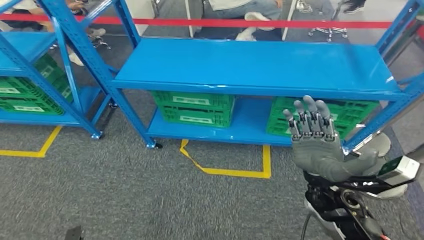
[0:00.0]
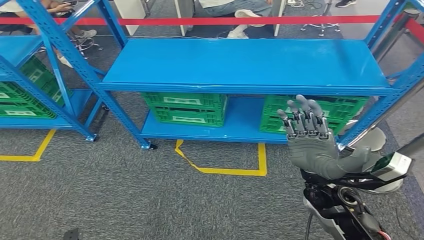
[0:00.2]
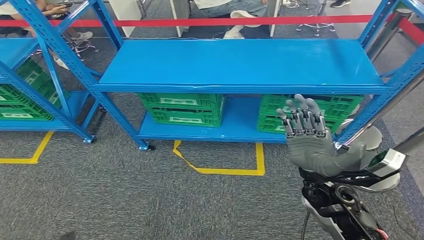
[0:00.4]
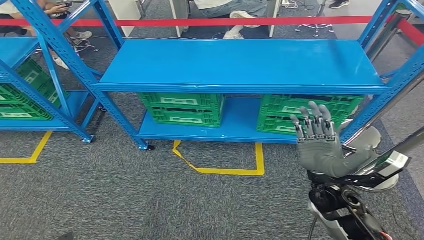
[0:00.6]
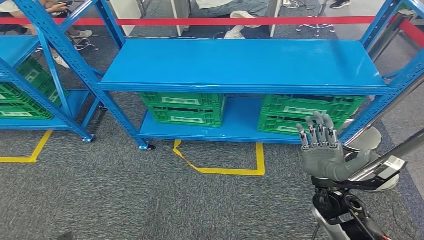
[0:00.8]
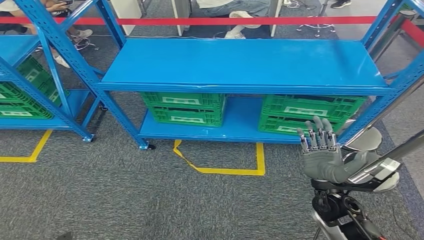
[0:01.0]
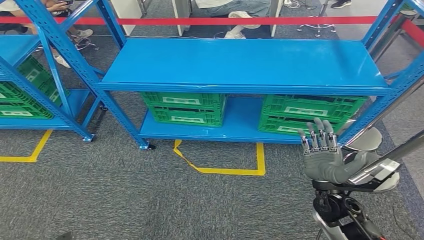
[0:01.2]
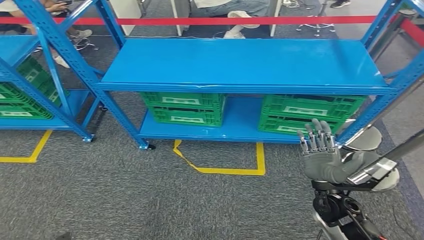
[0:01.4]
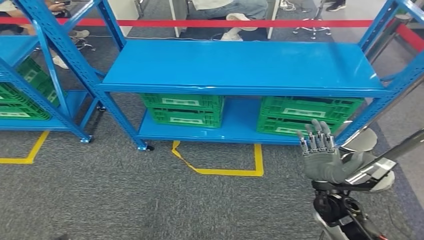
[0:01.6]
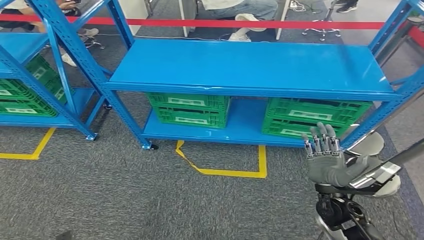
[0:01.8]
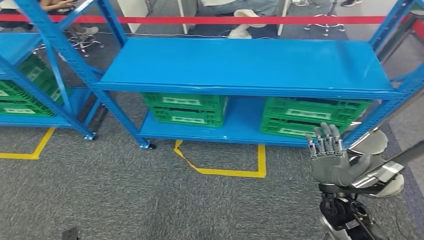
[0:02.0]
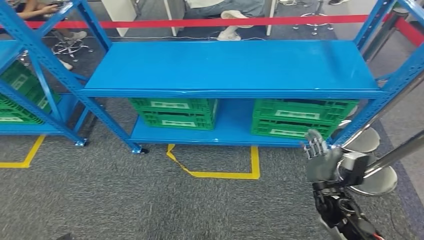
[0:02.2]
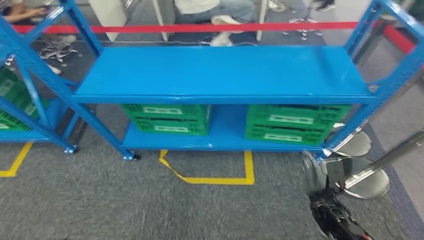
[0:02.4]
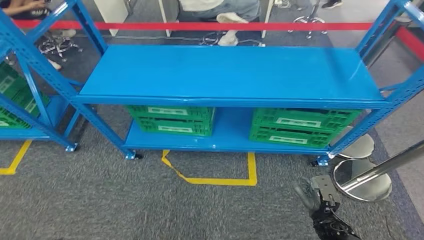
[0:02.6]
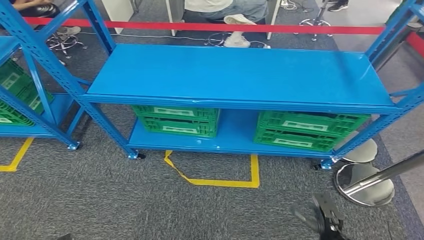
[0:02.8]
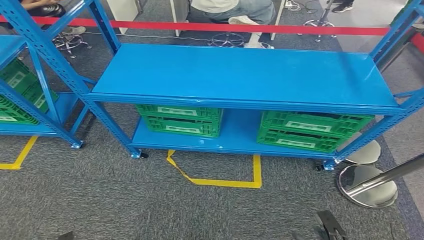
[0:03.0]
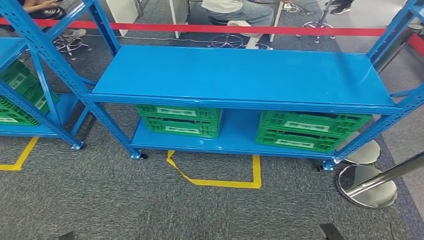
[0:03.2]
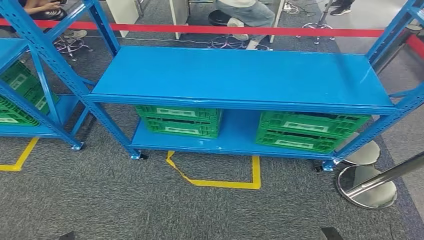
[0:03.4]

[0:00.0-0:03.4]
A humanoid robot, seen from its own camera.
Step, 0:00.0 to 0:03.2: Return to the initial position at the workbench.

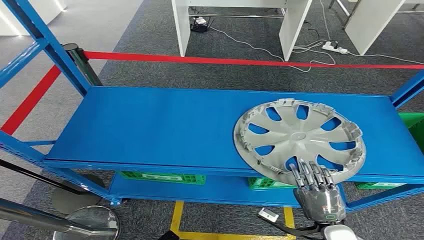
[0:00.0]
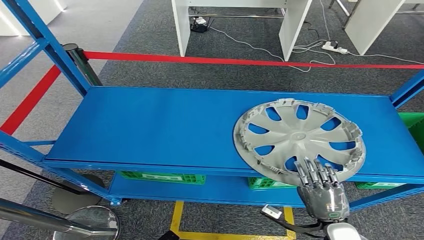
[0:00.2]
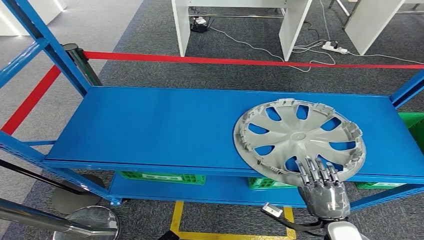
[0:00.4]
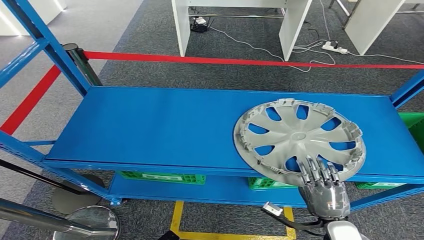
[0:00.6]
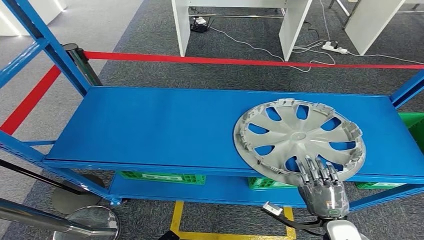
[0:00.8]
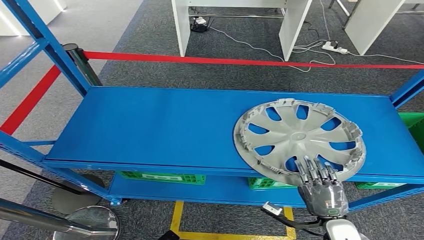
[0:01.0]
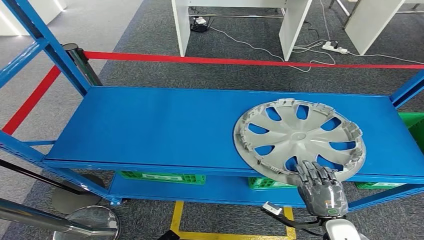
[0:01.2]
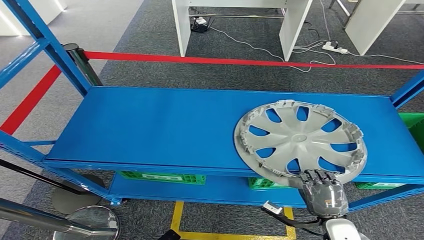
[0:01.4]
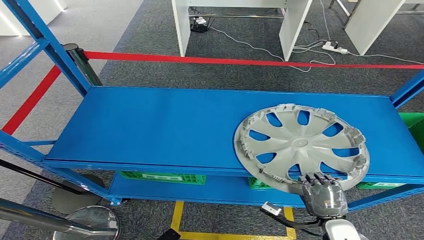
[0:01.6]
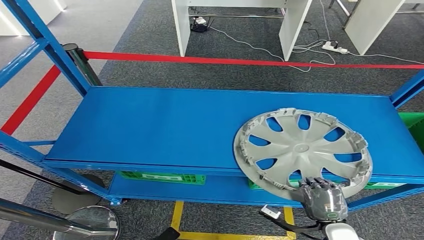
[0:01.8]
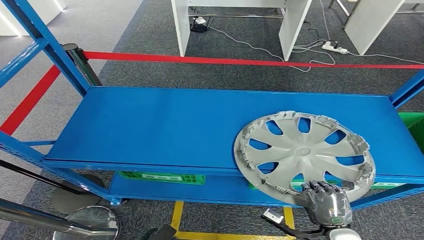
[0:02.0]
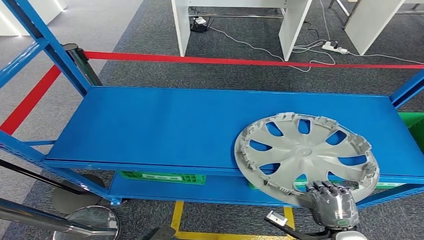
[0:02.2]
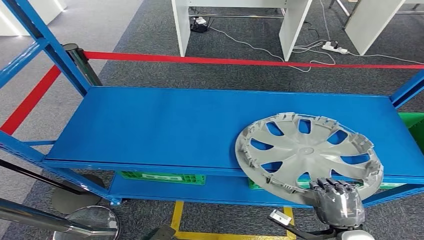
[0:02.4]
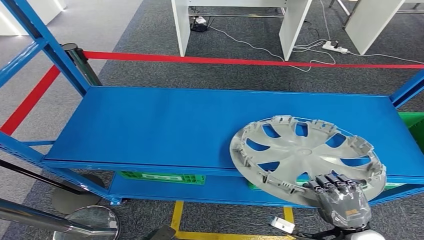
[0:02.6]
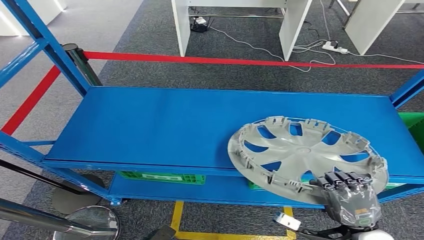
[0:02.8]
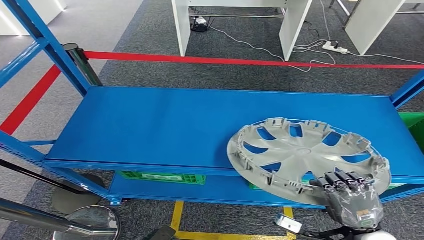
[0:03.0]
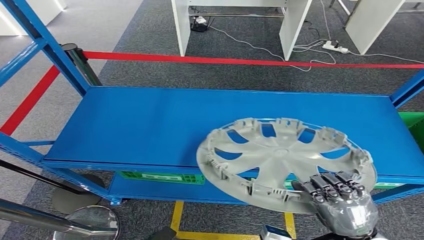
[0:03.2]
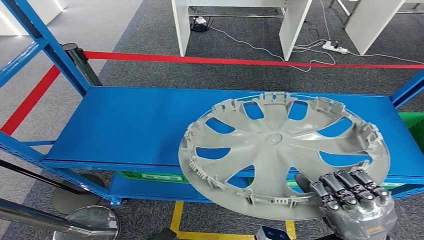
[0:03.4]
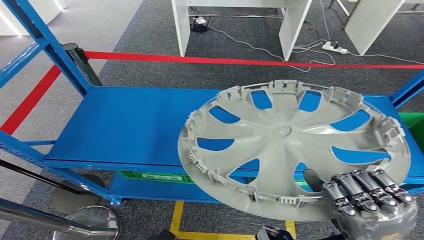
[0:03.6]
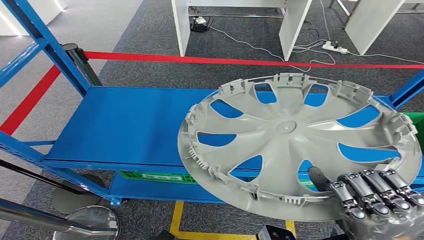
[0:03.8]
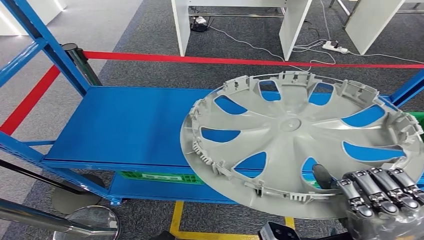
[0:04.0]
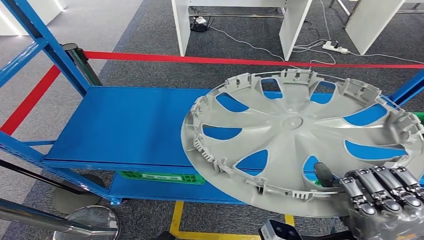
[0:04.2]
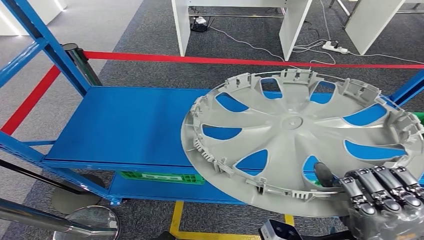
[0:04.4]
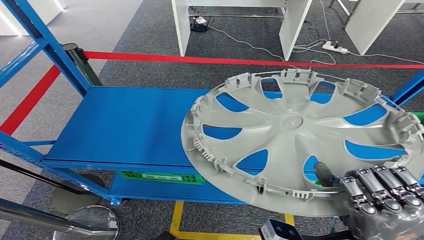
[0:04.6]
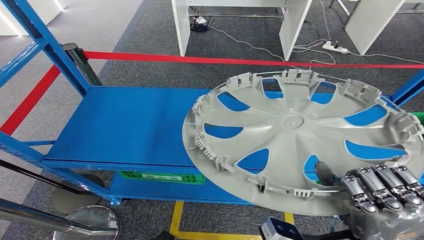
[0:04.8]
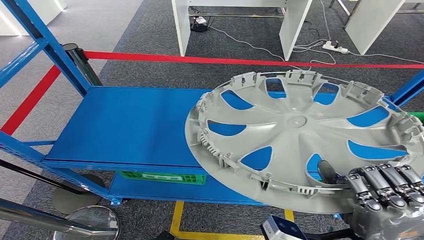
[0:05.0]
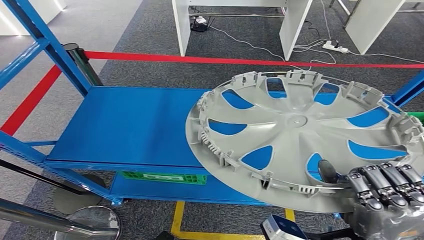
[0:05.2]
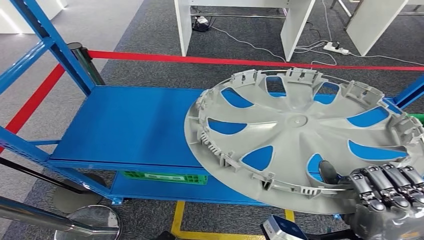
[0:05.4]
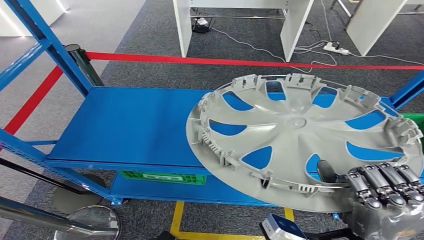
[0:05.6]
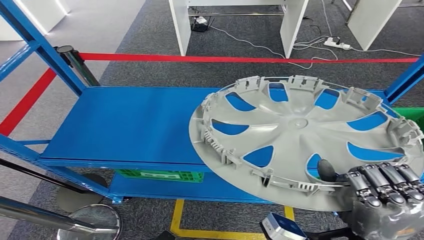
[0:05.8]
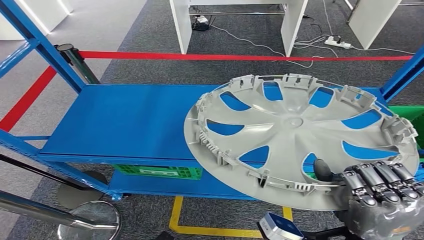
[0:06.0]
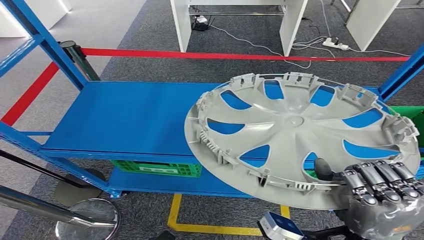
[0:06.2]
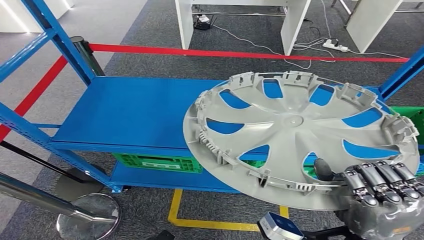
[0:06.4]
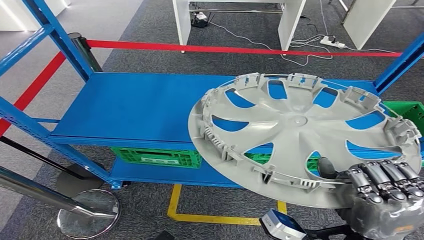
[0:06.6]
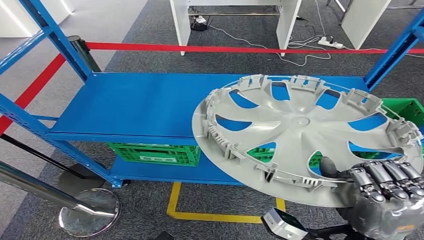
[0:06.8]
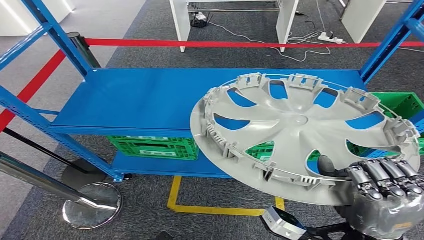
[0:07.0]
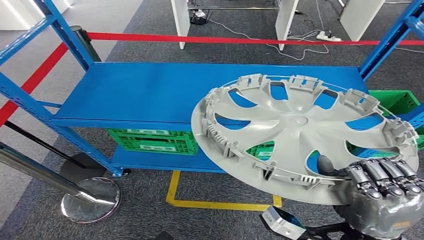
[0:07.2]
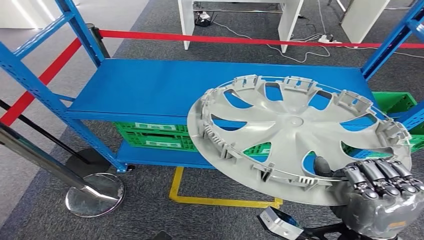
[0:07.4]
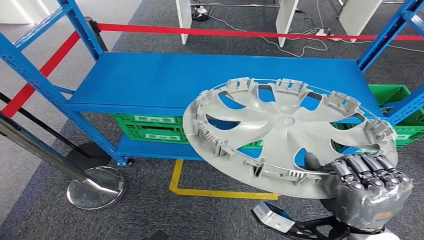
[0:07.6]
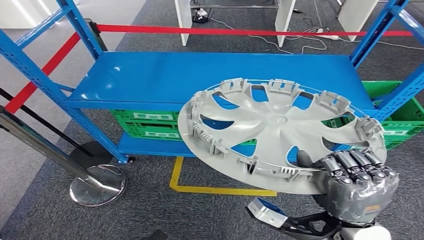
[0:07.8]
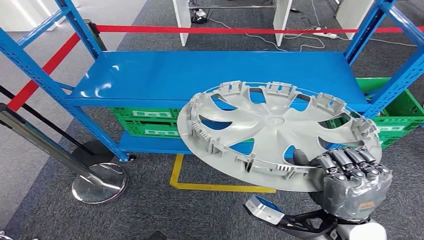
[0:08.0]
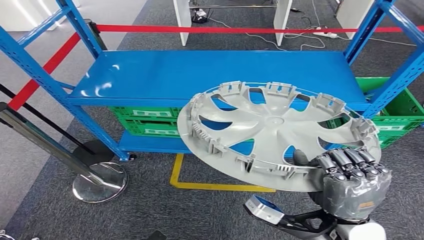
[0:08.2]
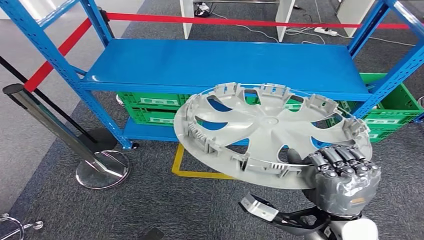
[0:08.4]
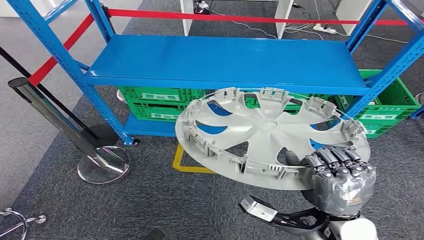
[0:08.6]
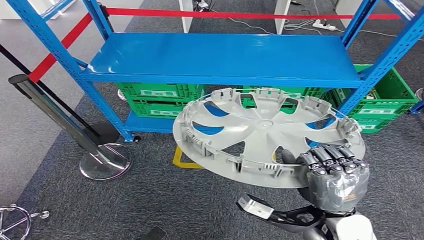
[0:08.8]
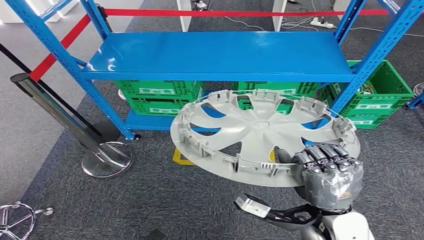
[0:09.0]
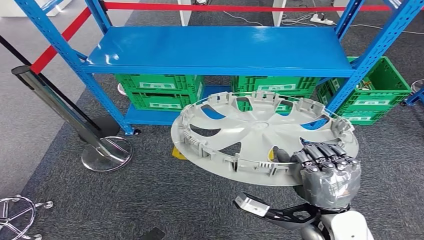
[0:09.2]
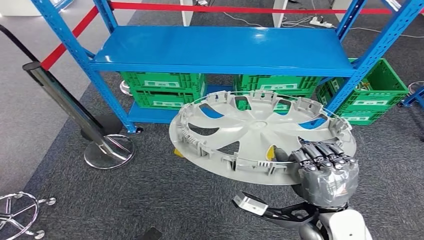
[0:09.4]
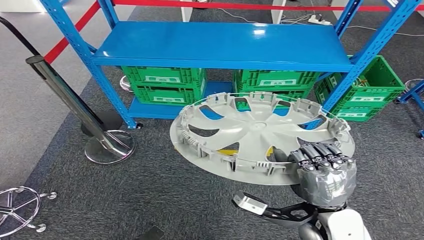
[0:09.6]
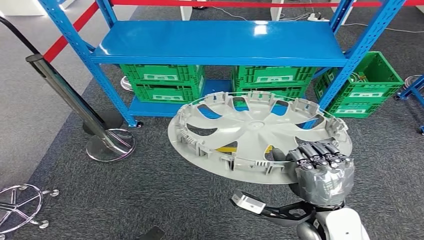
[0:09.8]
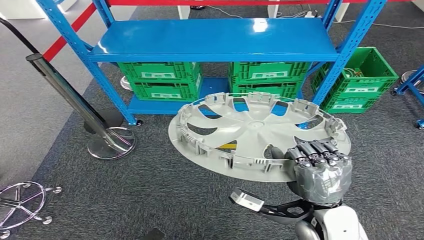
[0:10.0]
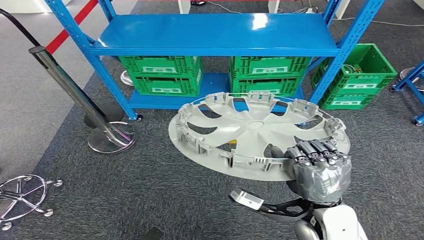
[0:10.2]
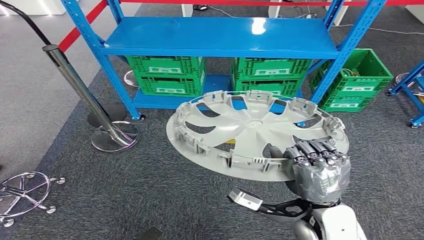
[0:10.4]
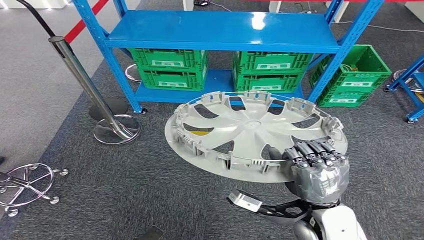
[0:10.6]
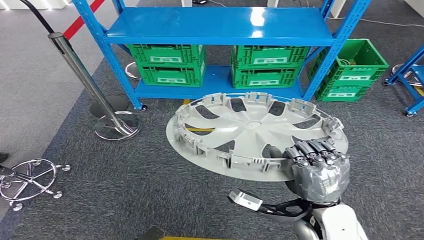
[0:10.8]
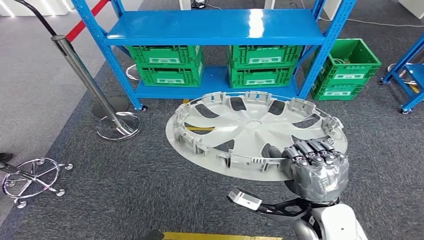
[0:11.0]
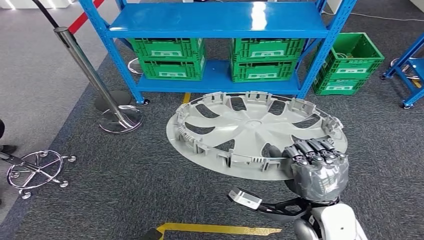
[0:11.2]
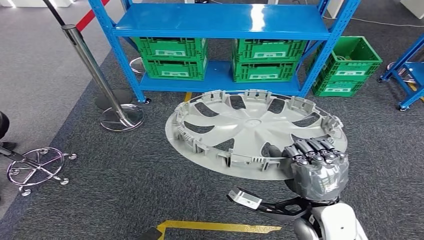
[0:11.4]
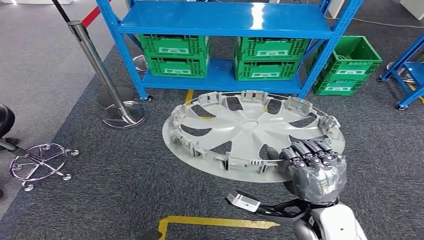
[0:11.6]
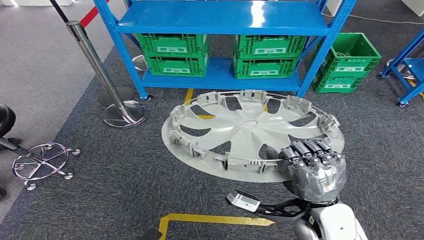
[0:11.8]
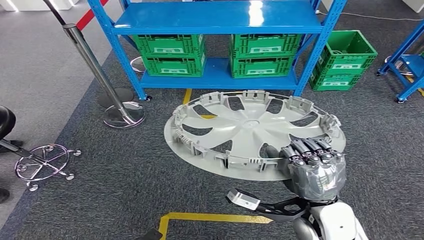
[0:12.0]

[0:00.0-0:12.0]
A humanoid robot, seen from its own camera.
Step, 0:00.0 to 0:06.2: Pick up the small component from the shelf.
0:01.6 to 0:03.0: The right hand travels upward by roughly 10 cm.

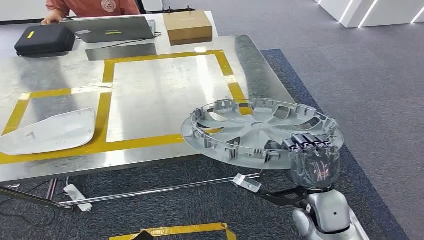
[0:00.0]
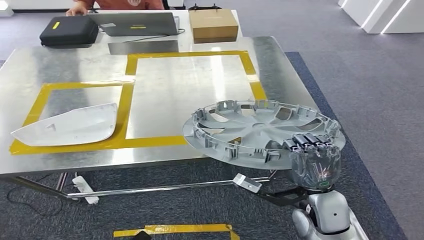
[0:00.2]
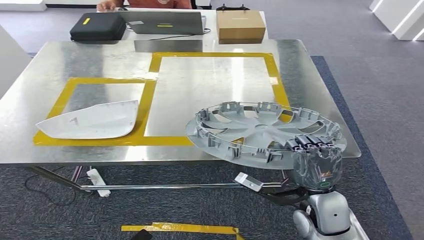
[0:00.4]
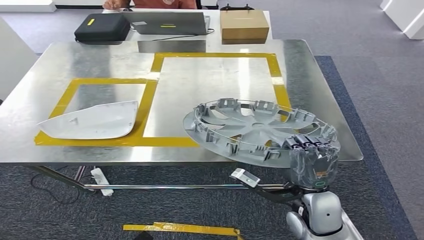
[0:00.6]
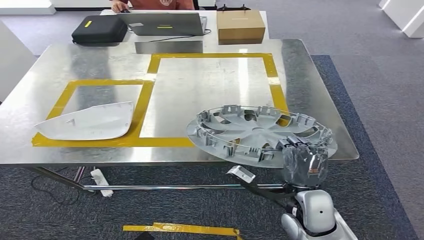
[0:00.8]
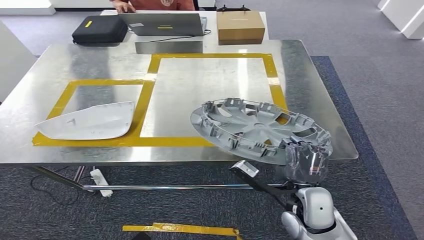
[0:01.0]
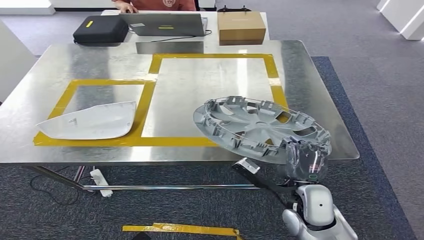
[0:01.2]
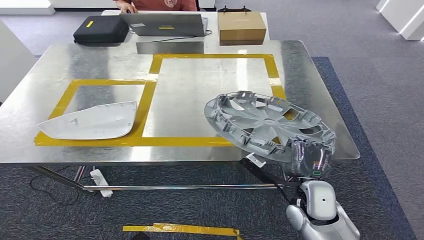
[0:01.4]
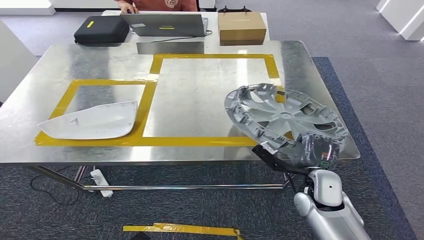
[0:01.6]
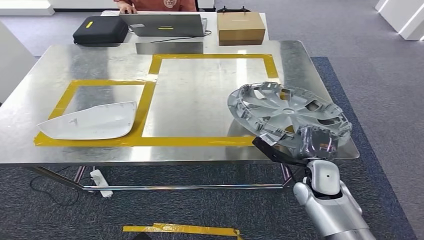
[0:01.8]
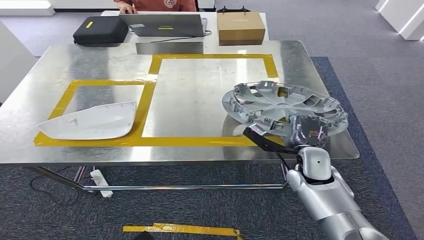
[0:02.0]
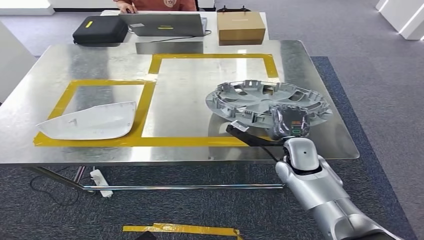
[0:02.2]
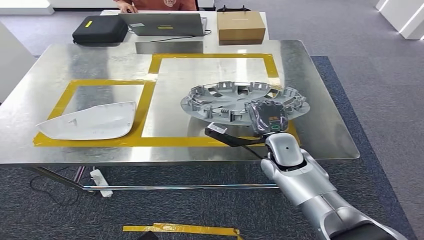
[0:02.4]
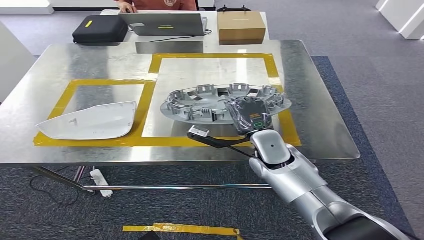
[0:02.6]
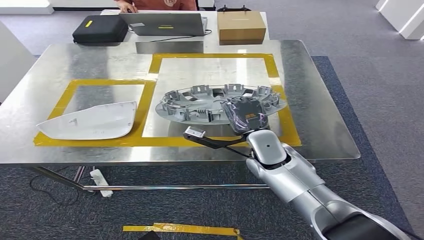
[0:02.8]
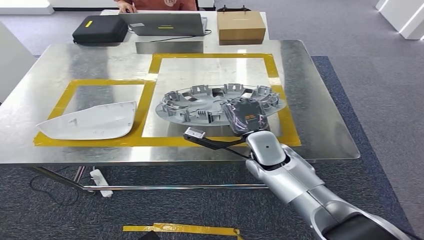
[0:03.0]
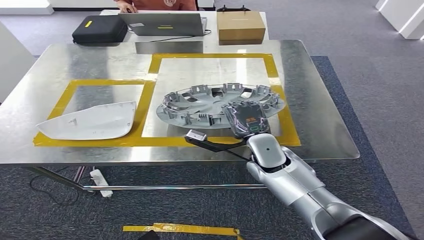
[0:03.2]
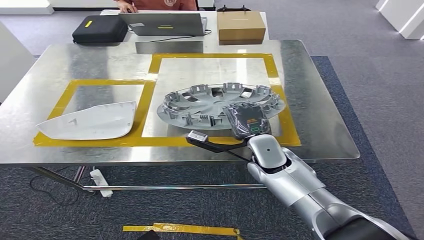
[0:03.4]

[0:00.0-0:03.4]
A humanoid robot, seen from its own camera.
0:01.6 to 0:03.4: The right hand heads to the left, forward and upward, covering roughly 15 cm.
